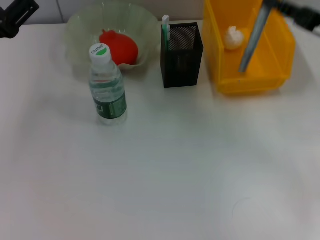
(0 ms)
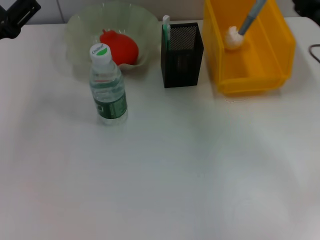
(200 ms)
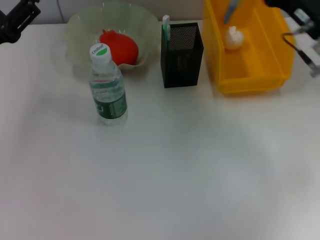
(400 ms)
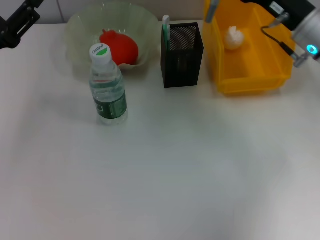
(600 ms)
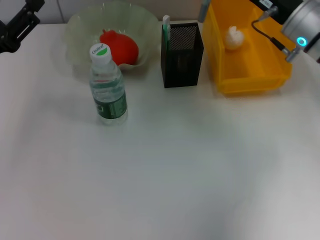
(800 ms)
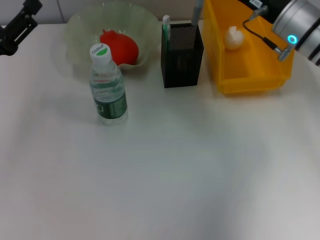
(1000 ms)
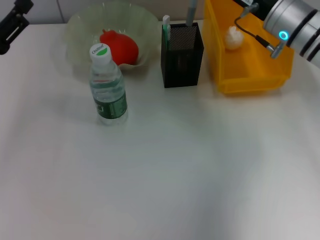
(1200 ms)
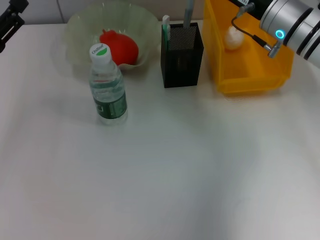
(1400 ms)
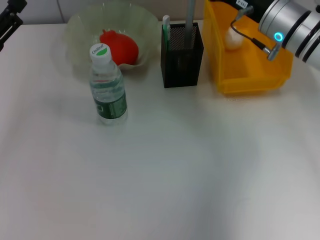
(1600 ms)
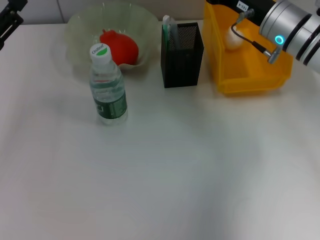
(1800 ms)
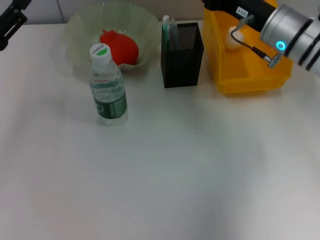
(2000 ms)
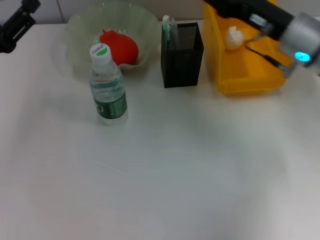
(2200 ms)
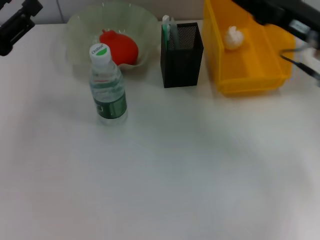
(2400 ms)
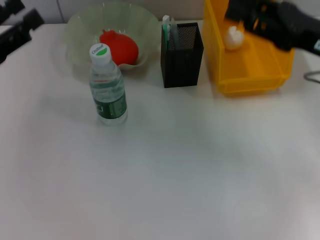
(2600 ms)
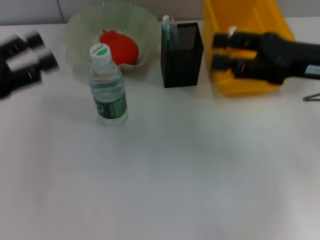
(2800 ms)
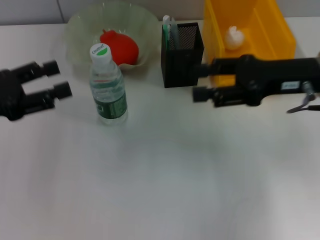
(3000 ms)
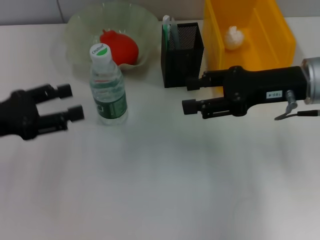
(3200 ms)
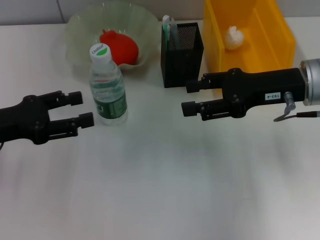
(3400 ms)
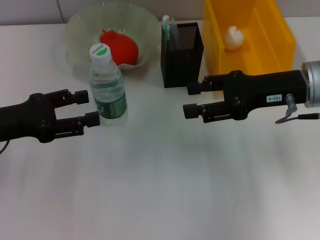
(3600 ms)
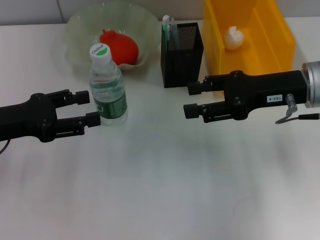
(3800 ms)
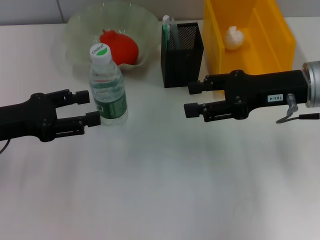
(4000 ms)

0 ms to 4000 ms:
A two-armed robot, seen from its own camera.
Step, 0 ms to 1800 ms: Place the gray glue into the pen holder with the right hand.
0 ms to 1400 ms: The right gripper shifts about 15 cm to the left and forward.
1400 ms to 2600 ms: The right gripper heads backward and to the right, covering some 10 cm, and opens up.
2600 ms to 4000 ms: The right gripper opens its fingers.

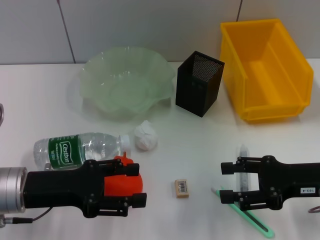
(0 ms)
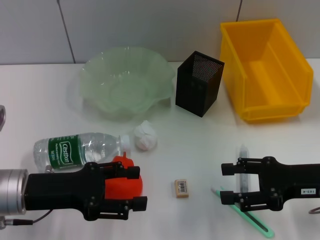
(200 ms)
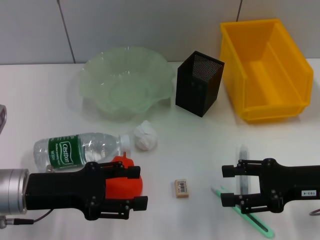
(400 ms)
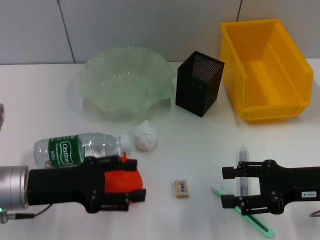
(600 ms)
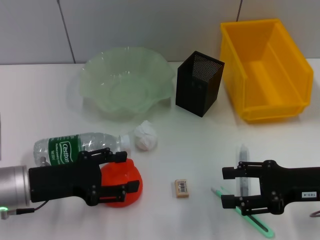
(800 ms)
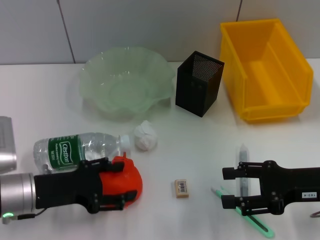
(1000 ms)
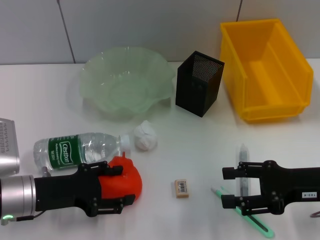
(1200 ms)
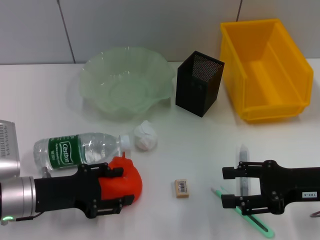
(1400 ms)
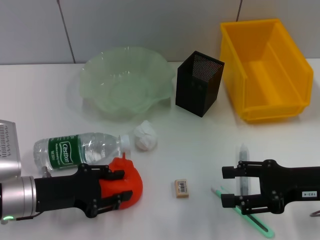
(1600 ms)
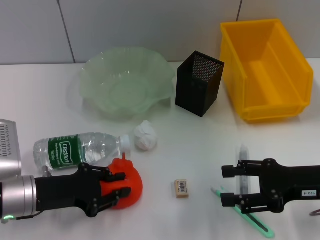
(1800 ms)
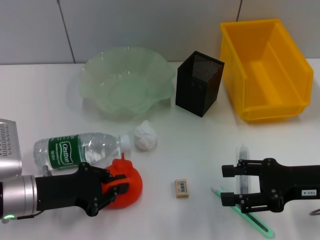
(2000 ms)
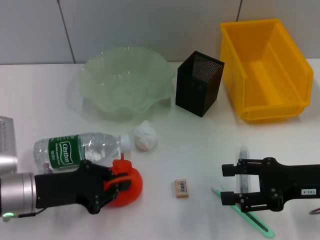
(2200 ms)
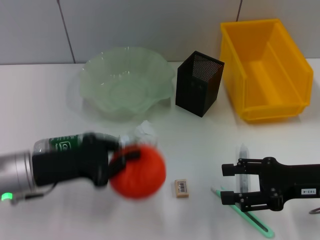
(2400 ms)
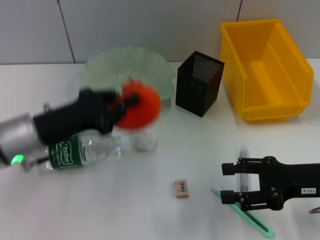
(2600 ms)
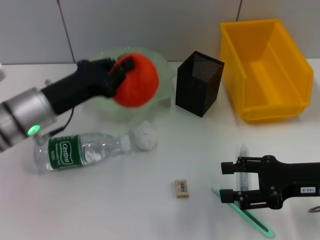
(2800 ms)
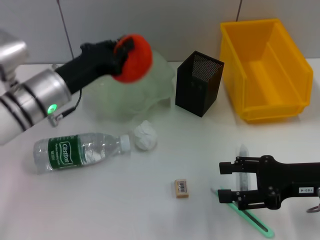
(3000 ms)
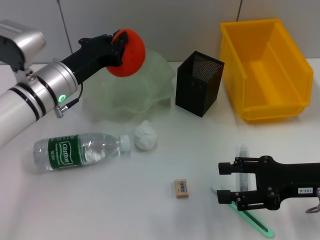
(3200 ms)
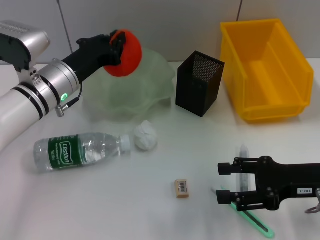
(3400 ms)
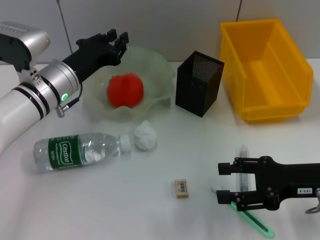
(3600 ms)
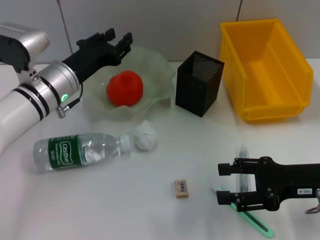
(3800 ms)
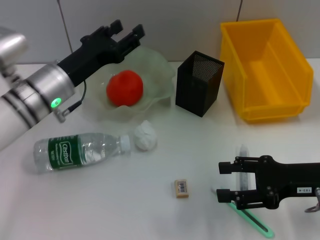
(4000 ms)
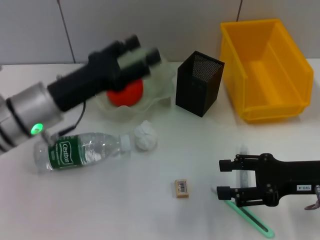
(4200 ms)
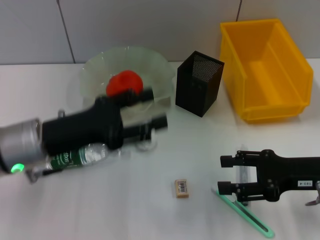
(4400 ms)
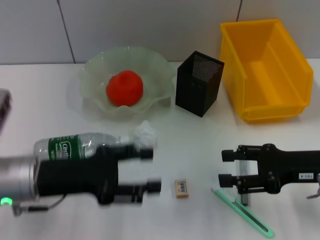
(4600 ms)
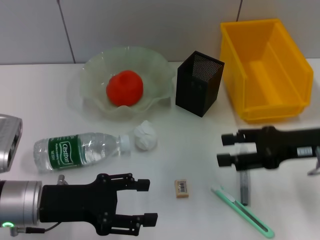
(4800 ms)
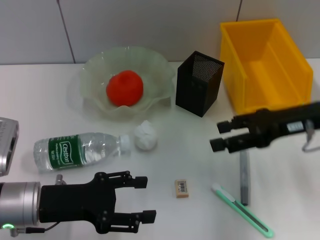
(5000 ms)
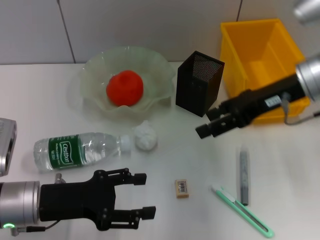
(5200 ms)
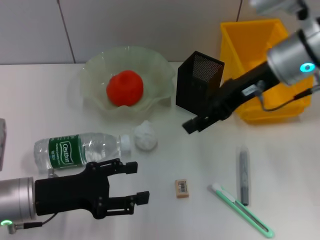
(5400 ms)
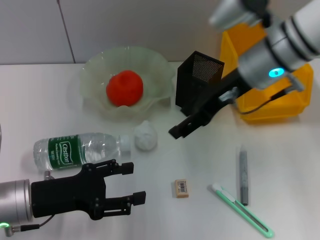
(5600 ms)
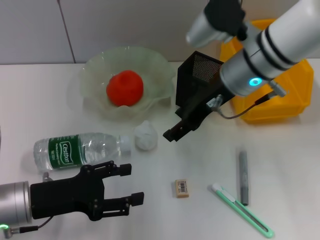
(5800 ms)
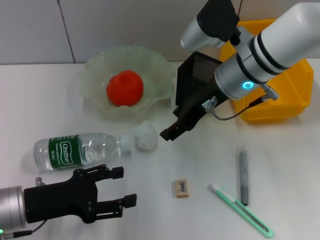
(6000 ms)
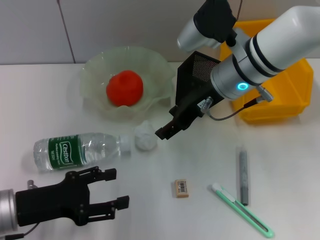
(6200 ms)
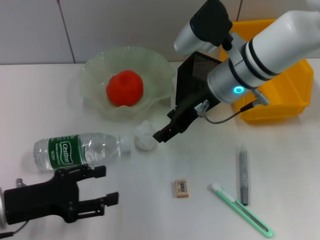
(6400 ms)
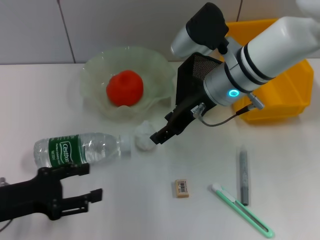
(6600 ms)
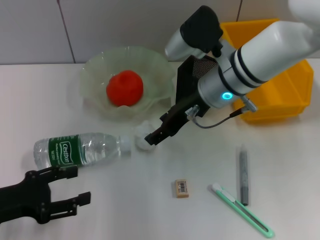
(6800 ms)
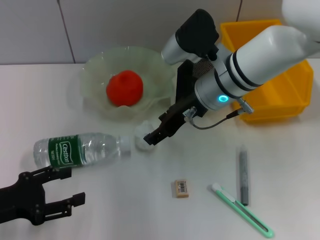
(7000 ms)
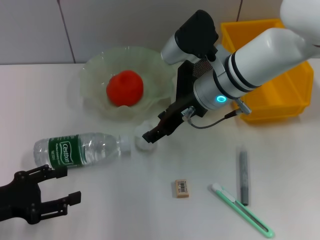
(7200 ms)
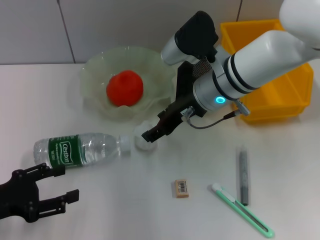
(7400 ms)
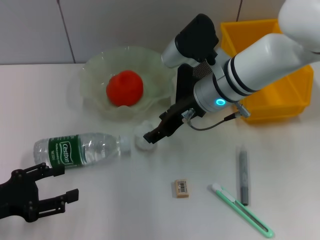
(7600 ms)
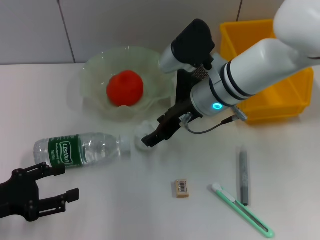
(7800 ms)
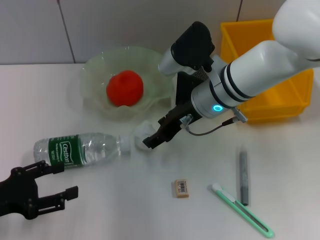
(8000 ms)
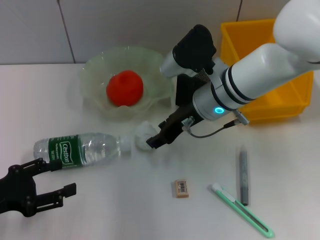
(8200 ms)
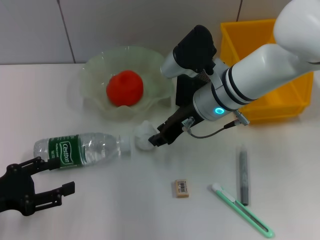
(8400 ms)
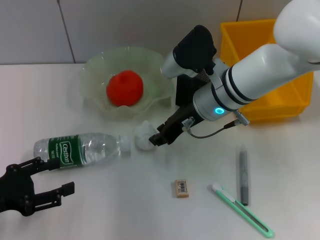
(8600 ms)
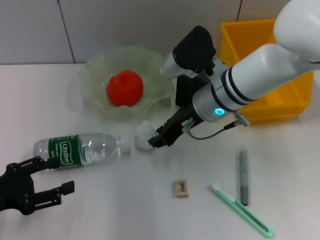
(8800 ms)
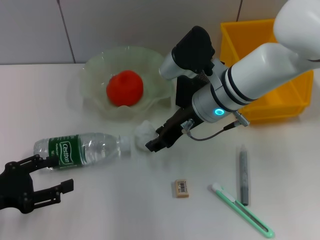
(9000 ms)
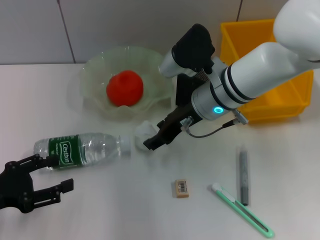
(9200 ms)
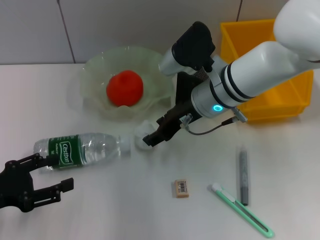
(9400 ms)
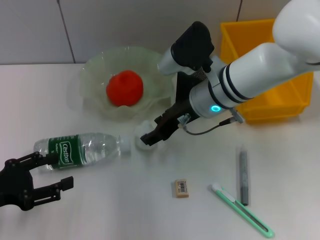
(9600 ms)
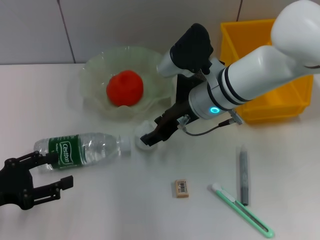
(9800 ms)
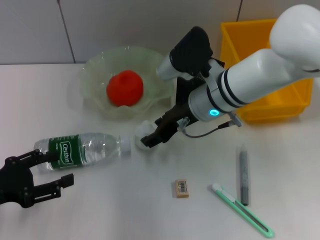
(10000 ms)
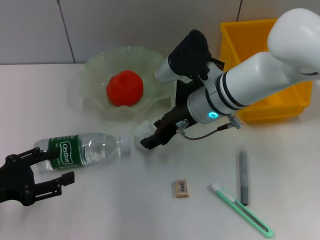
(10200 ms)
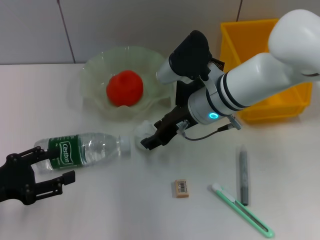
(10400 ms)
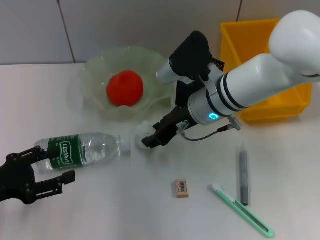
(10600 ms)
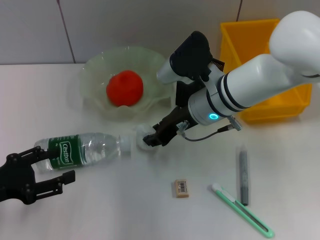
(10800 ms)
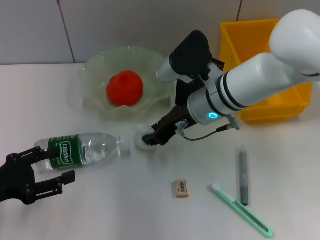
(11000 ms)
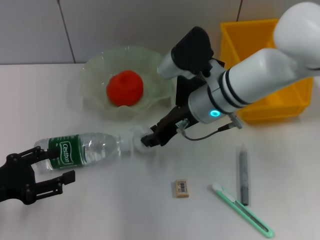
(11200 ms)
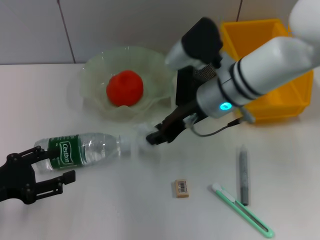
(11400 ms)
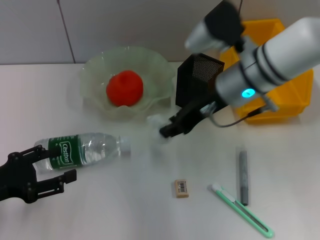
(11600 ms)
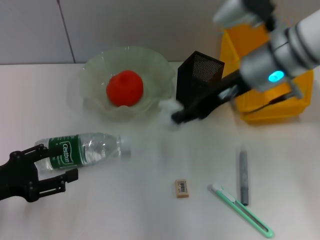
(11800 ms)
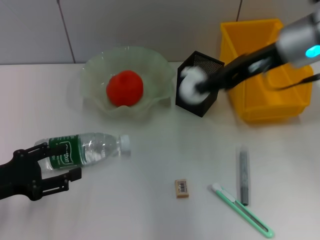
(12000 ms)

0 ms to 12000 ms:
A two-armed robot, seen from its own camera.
Step, 0 ms to 2000 ms: Grab the orange with the left hand.
Step, 2200 ms to 4000 ms: Place the orange into the fruit bowl with the left hand.
Step, 4200 ms to 10600 ms: Grab the paper ball with the right hand.
1600 ms to 3000 ms: The left gripper travels forward, upward and to the right by roughly 15 cm, and closes its fingers.
3000 ms to 4400 ms: The left gripper shifts some 10 cm backward, and opens its fingers.
4400 ms to 6000 ms: The right gripper moves to the left, forward and upward, some 20 cm. Meanwhile the left gripper travels downward by some 5 cm.
6000 ms to 7600 ms: The left gripper shifts approximately 5 cm to the left.
7600 ms to 9000 ms: The right gripper closes.
9000 ms to 10400 ms: The two grippers keep their place.
10400 ms to 12000 ms: The right gripper goes approximately 15 cm upward and to the right, and closes its fingers.

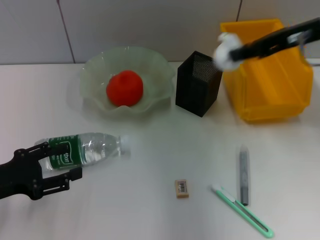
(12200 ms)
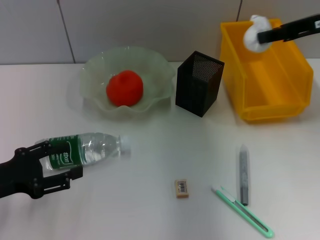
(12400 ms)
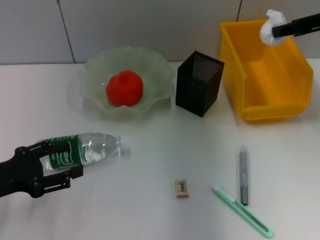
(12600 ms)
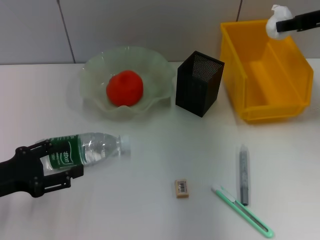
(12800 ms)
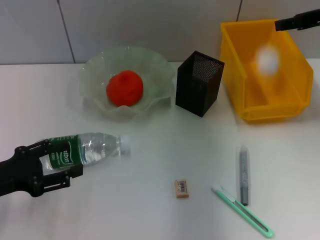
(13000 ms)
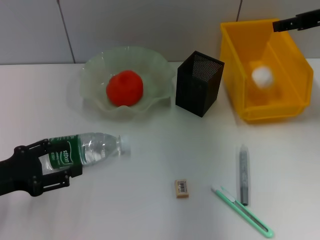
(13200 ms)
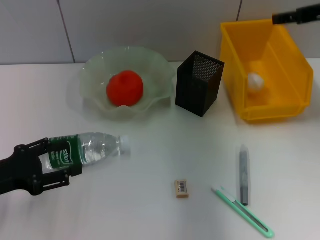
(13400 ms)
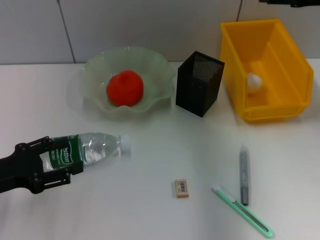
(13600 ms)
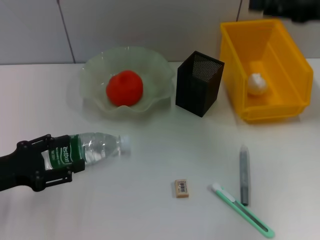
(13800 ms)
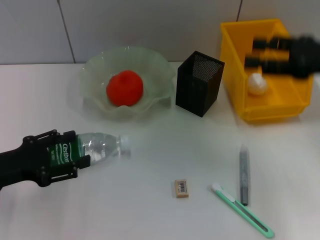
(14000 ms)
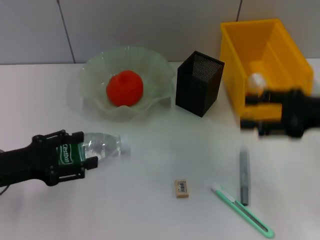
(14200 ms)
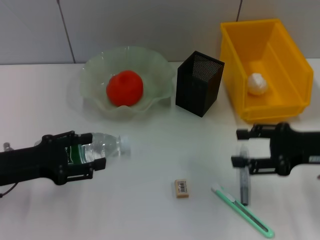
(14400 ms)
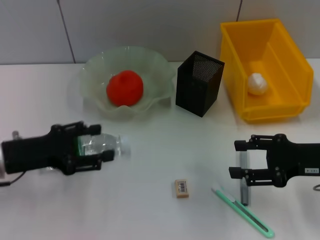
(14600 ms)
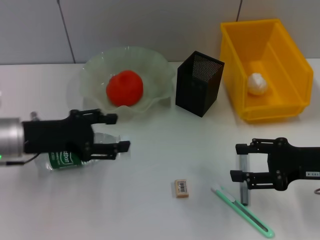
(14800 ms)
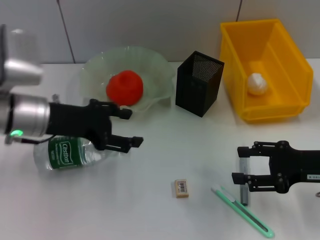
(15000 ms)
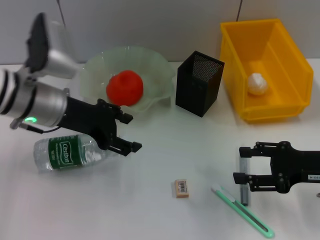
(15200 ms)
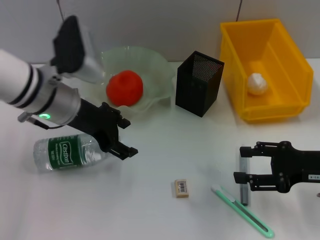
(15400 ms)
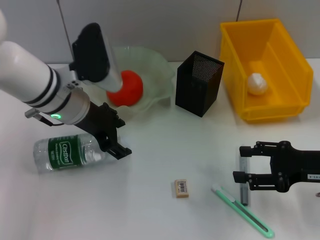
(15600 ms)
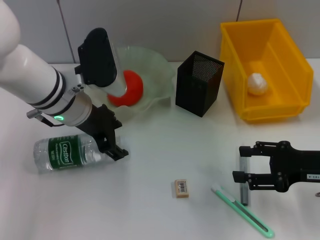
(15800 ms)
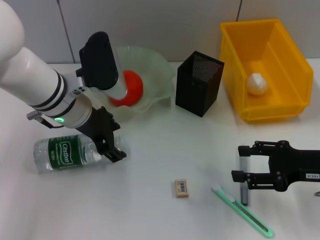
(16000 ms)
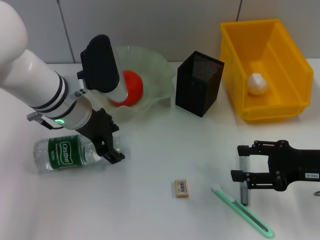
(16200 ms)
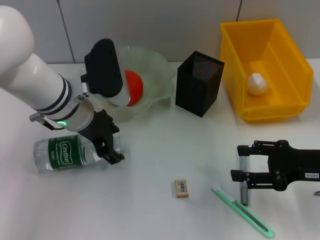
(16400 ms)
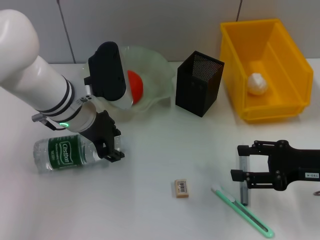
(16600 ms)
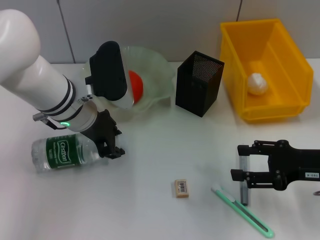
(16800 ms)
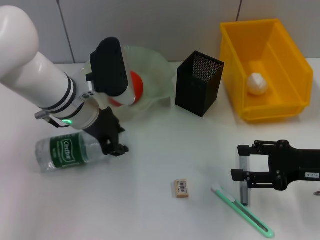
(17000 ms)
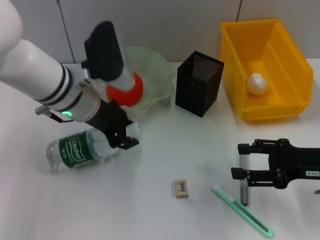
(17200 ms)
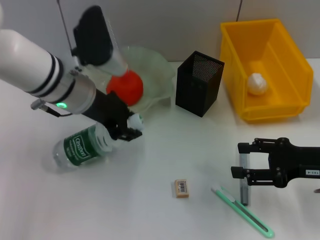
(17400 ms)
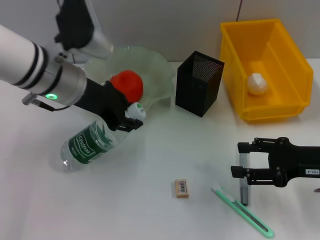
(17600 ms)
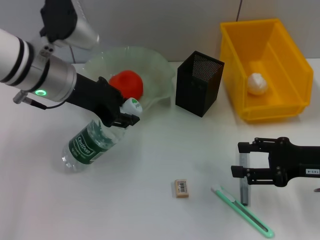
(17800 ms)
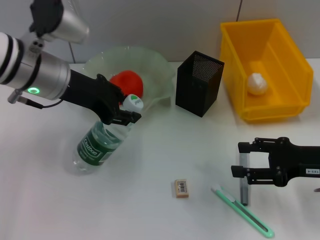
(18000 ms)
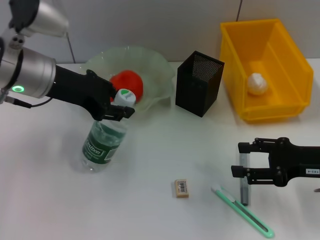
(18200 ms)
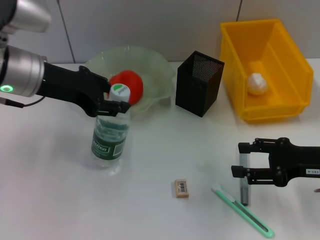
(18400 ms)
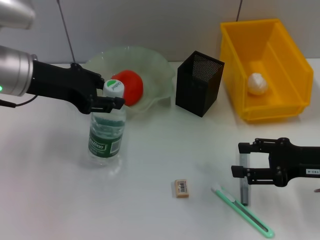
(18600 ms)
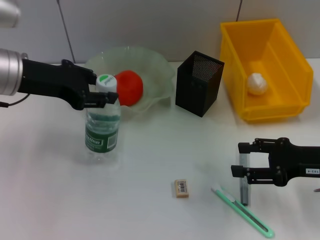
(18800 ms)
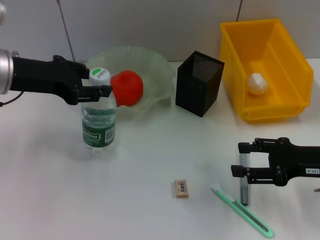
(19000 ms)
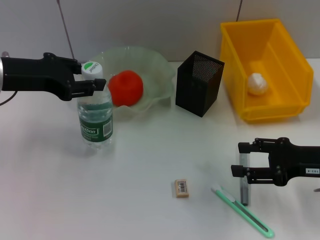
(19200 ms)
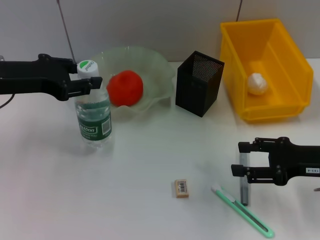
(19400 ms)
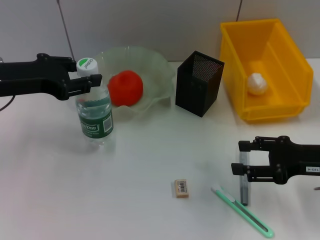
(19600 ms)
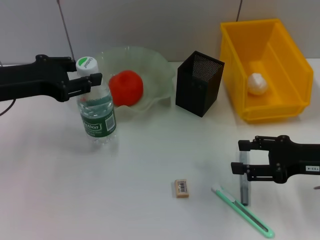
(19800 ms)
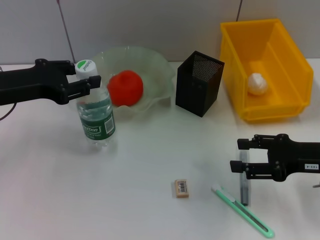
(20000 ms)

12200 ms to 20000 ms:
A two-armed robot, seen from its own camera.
Step, 13400 ms to 16600 ms: Grab the water bottle with the left hand.
12200 ms to 13800 ms: The right gripper goes some 5 cm to the right, and opens its fingers.
13800 ms to 15400 ms: The right gripper goes some 20 cm downward and backward; the left gripper heads to the right, forward and upward, covering approximately 20 cm.
15400 ms to 16800 ms: The grippers move only a little.
16800 ms to 18400 ms: The left gripper goes roughly 10 cm upward and to the left.
18400 ms to 20000 ms: The left gripper shifts about 5 cm to the left.
